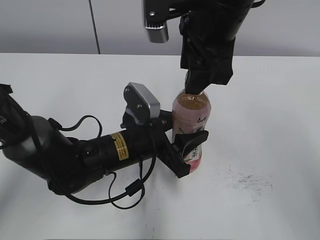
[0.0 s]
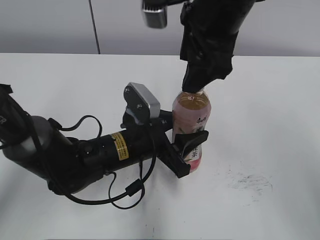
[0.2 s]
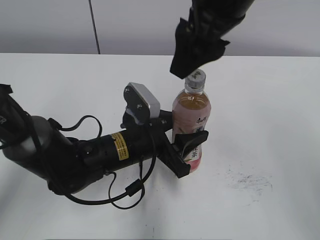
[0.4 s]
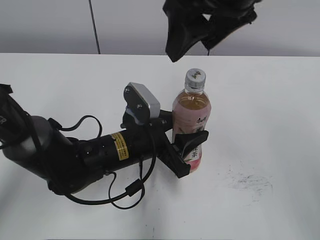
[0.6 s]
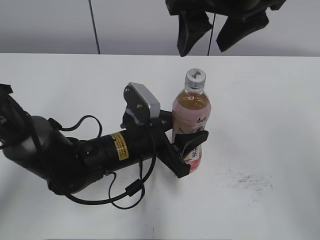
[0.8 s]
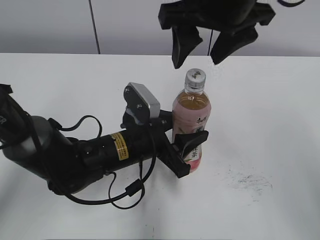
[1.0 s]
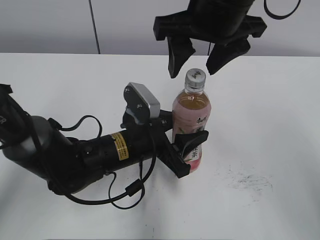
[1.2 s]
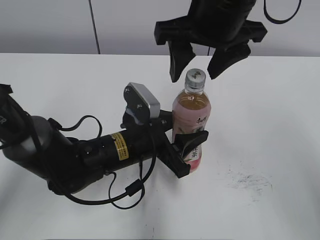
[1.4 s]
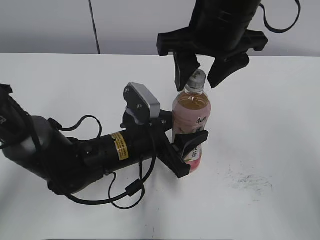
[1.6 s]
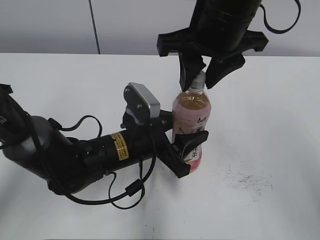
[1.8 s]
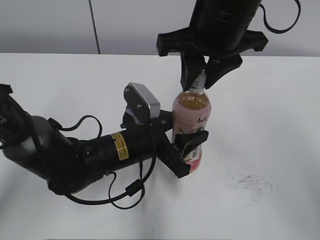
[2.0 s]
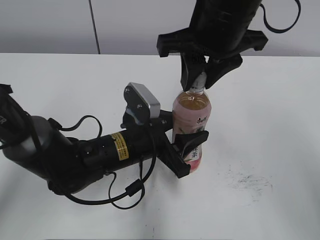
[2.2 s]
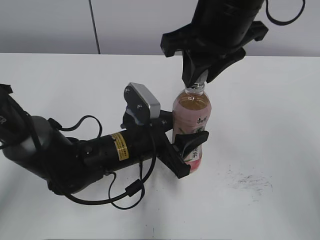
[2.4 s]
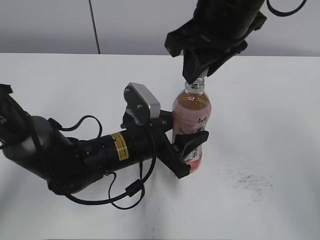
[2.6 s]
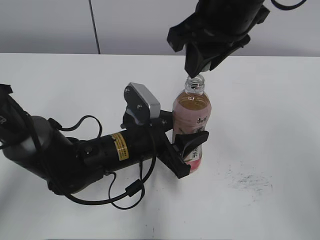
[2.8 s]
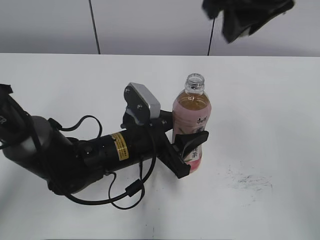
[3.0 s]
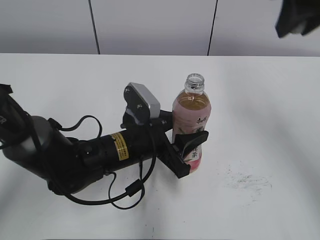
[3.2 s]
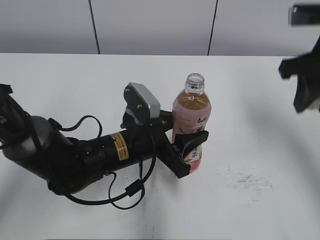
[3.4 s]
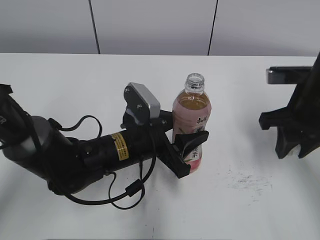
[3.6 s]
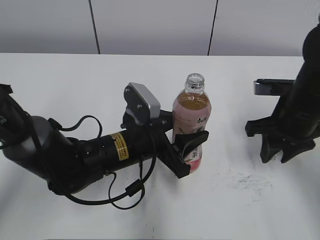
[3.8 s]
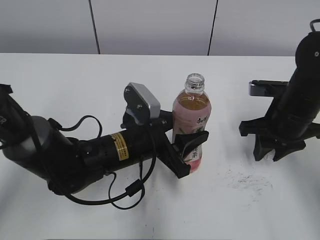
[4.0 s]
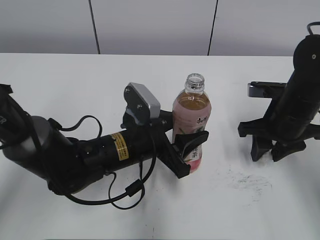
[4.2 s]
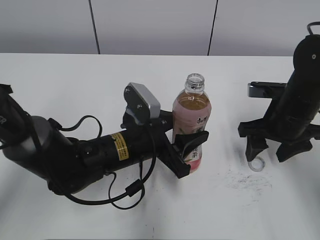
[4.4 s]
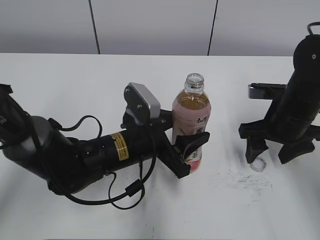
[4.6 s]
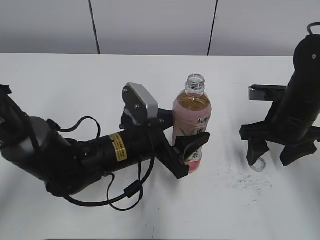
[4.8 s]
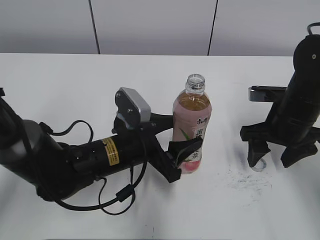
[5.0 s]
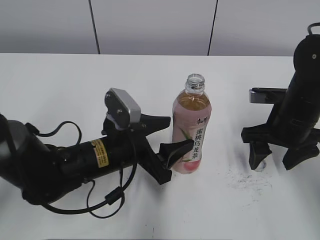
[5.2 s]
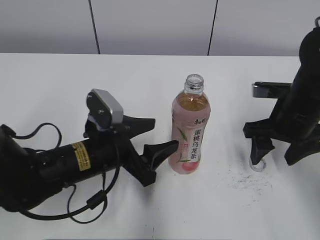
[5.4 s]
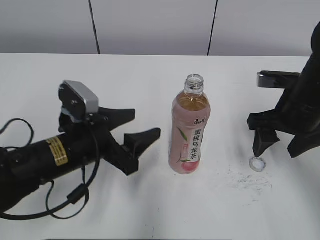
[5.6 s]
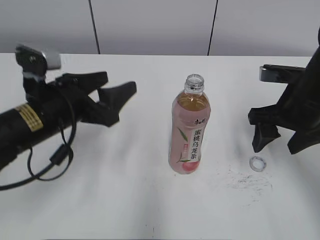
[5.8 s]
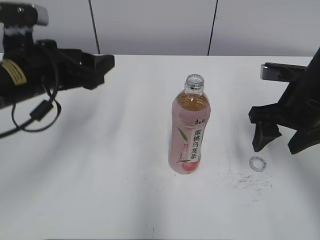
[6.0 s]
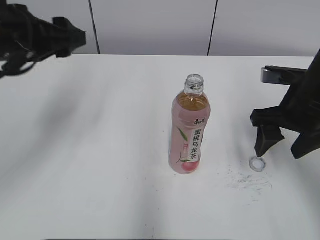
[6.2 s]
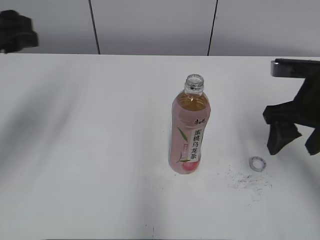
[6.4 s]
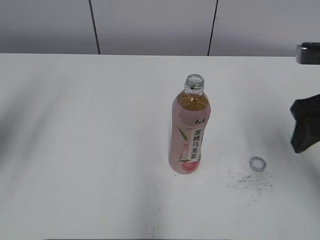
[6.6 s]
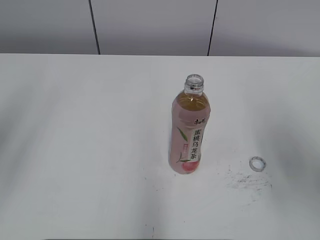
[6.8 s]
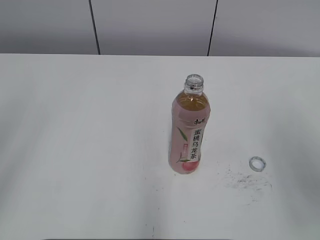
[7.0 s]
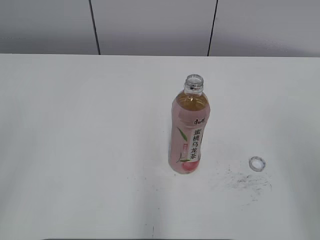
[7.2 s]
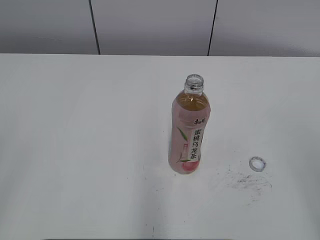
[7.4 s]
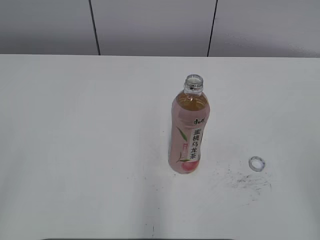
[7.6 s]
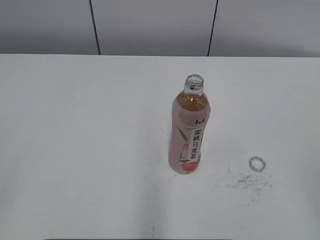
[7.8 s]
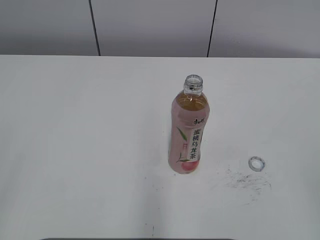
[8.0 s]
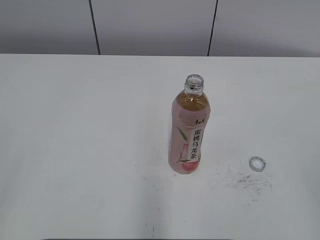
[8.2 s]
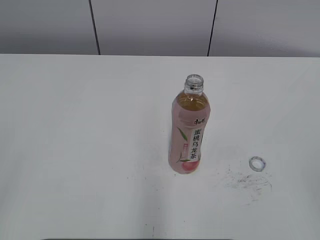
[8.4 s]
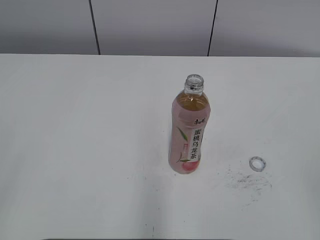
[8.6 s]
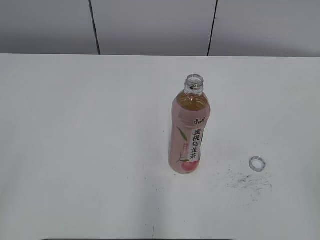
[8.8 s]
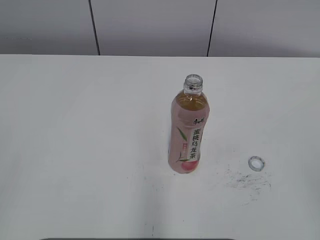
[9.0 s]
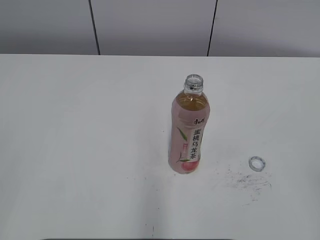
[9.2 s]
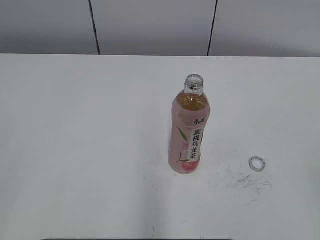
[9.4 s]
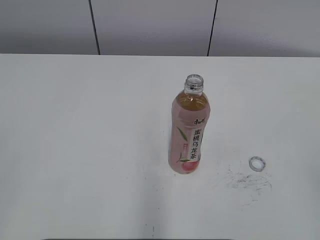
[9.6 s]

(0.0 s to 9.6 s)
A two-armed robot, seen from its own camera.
Step, 2.6 s - 4.2 s: Place the bottle cap on the right.
Step, 4.4 s - 5.2 s: Place the Peach Oolong Tea with the left hand.
1.6 s - 3.2 s: The right gripper goes about 15 cm to the right and upward, and closes its fingers.
3.2 s - 4.8 s: The right gripper is displaced downward by approximately 20 cm, and opens up.
4.8 s - 6.4 s: The left gripper is displaced to the left and upward by approximately 30 cm. Meanwhile the right gripper goes roughly 10 cm upward.
6.4 s - 8.0 s: Both grippers travel together backward, about 30 cm.
8.0 s - 9.6 s: The grippers stay close to where they were, moving slightly.

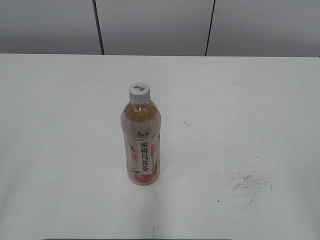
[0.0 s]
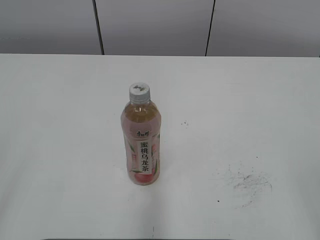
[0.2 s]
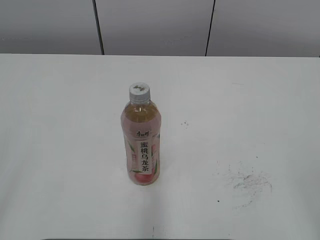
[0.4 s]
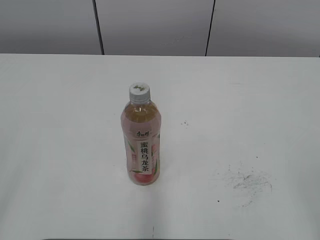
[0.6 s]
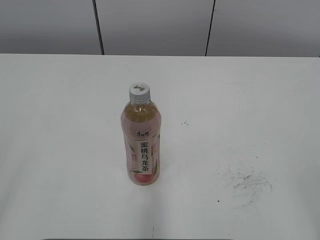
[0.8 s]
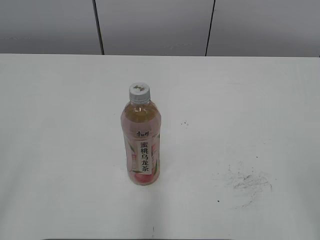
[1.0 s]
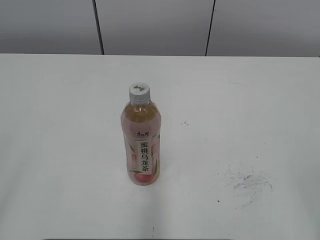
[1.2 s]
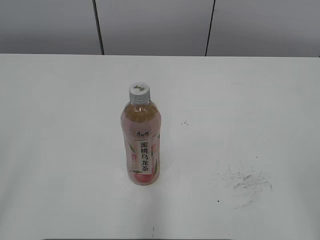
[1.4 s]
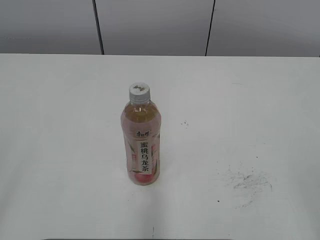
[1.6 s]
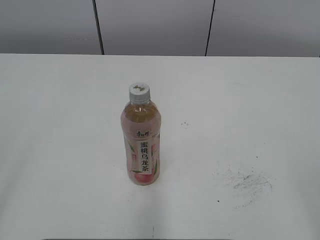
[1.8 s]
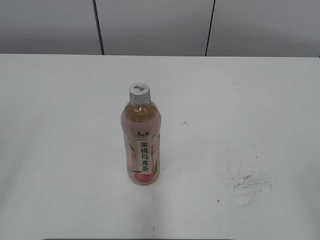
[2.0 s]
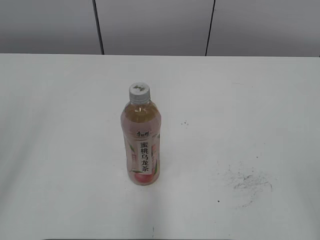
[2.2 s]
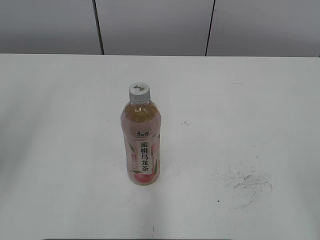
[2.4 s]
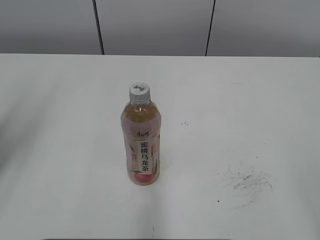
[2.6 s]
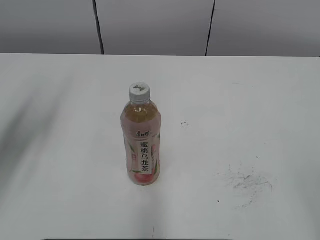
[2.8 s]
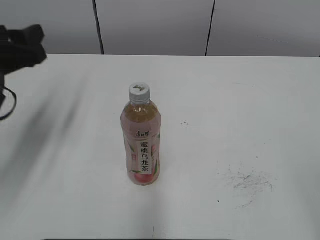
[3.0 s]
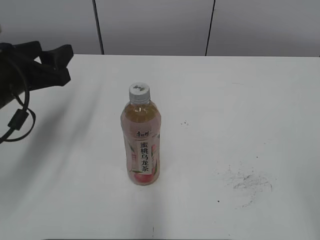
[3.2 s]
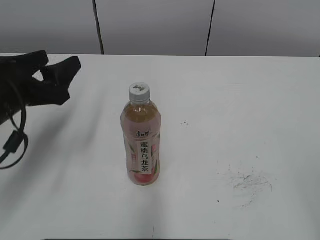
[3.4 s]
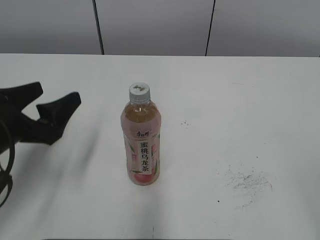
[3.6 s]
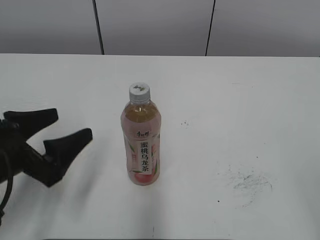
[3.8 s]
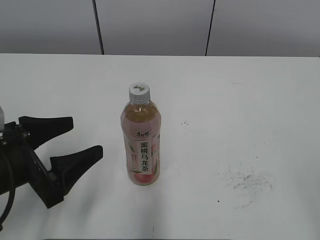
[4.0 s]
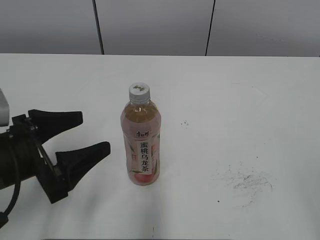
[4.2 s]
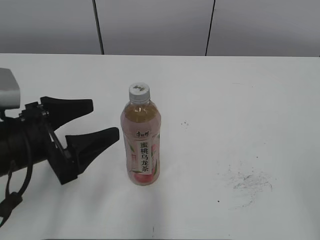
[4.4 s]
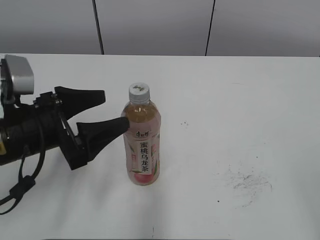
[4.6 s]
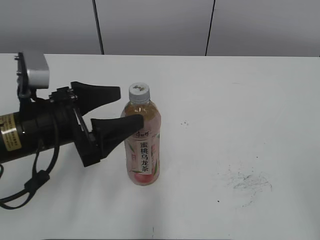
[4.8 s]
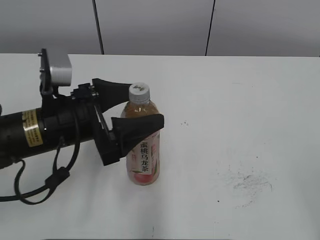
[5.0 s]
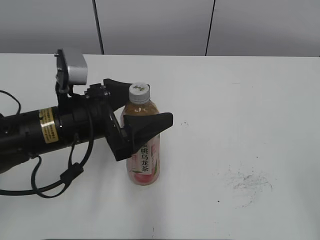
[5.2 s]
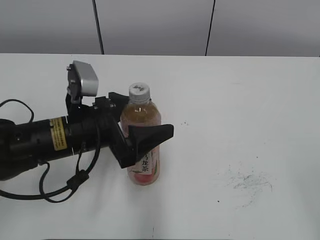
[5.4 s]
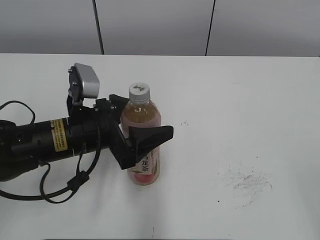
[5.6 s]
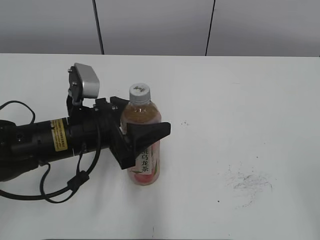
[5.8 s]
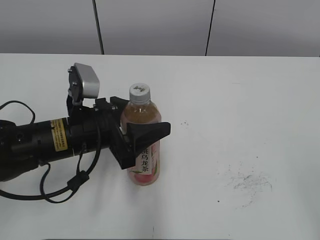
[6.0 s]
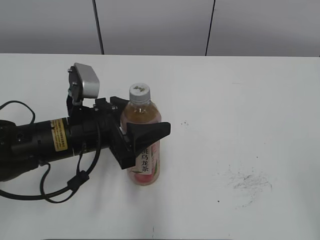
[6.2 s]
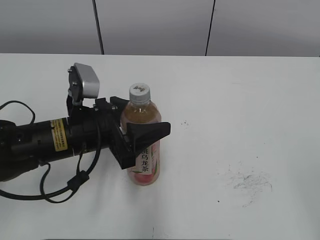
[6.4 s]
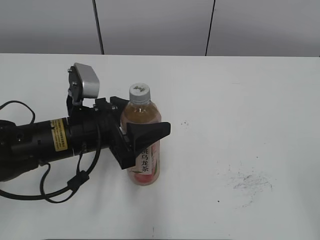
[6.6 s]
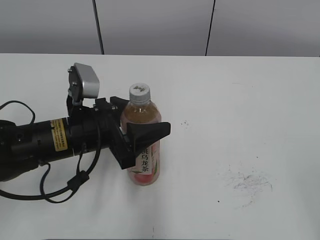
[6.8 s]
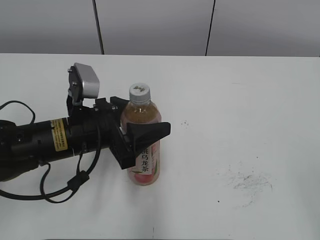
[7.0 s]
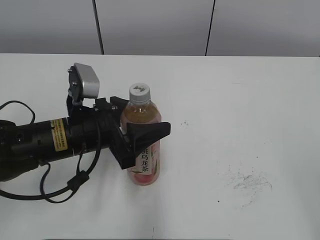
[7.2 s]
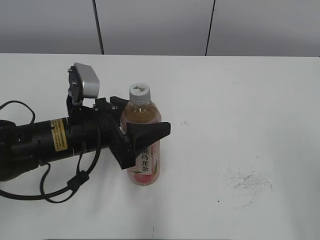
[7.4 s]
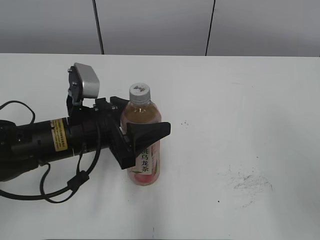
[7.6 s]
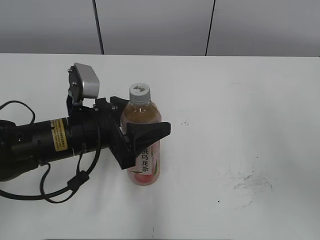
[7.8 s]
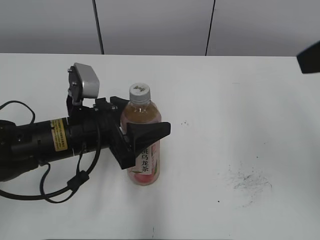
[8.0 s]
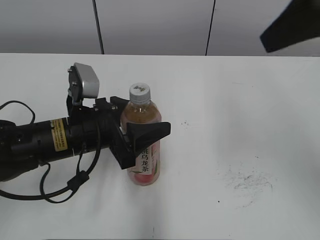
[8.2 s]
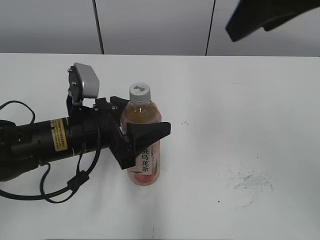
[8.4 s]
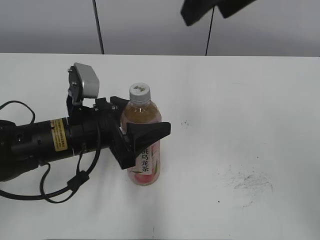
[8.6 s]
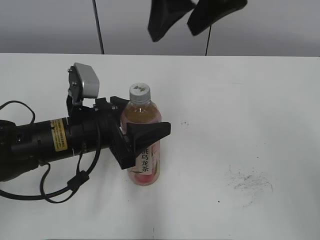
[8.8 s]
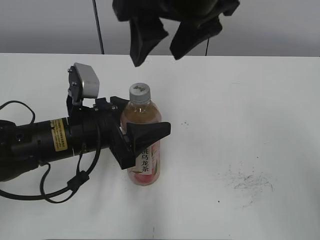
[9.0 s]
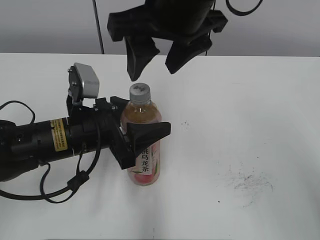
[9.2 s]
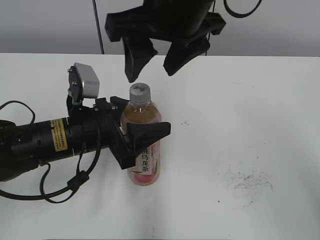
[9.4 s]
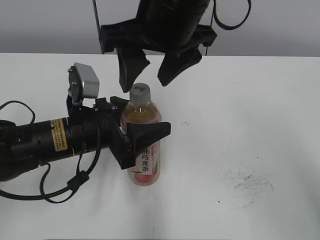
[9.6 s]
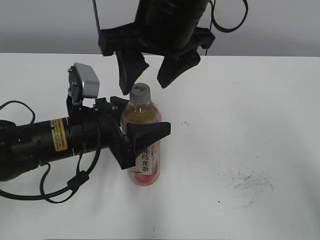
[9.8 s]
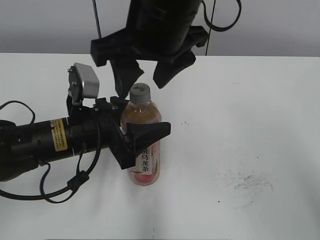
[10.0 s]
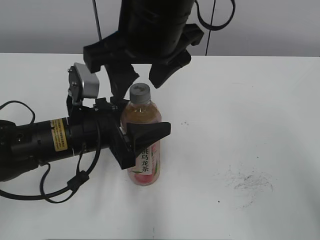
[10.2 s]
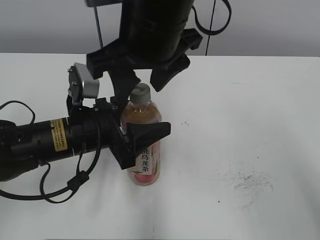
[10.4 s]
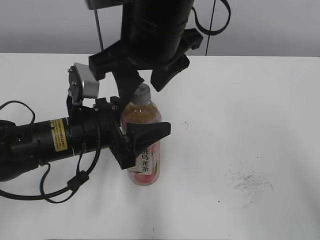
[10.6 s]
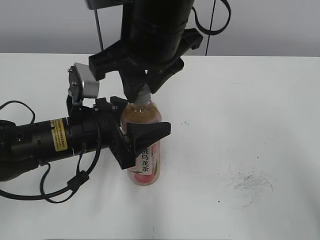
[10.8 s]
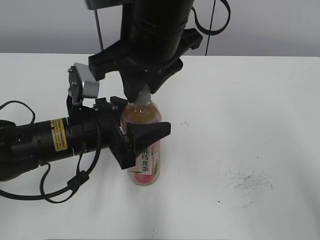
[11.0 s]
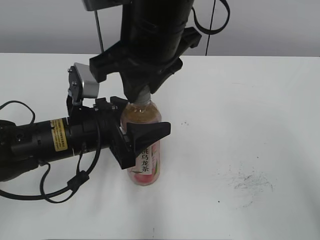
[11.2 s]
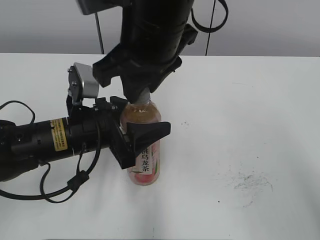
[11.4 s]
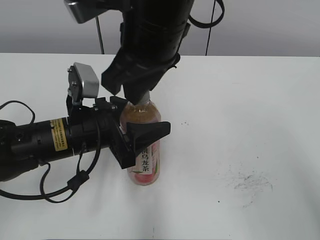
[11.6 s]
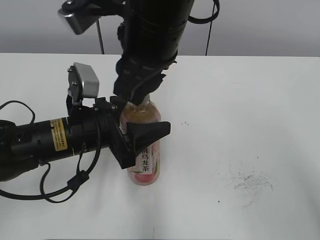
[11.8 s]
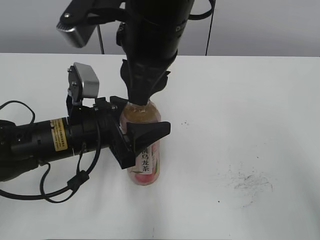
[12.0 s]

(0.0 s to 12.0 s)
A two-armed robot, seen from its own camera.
Step, 0.0 s - 10.4 s: Grab the Peach Oolong Tea with the left hand.
1.6 s - 3.0 s: The left gripper is displaced forward by approximately 25 cm, and closes its fingers.
3.0 s - 4.4 s: The left gripper travels downward, backward and to the right by roughly 10 cm, and opens its fingers.
4.4 s - 6.0 s: The left gripper heads to the right and forward, covering roughly 10 cm, and closes up.
7.6 s - 9.0 s: The right gripper is displaced to the left and forward by some 30 cm.
9.0 s - 10.4 s: The right gripper shifts by some 5 cm.
10.4 s - 12.0 s: The right gripper closes.

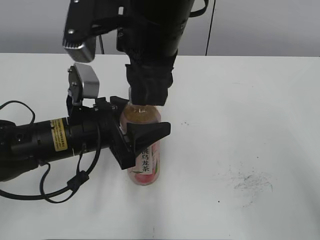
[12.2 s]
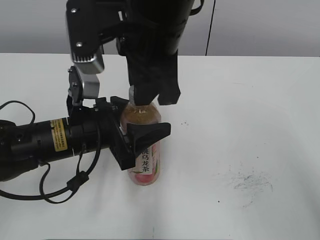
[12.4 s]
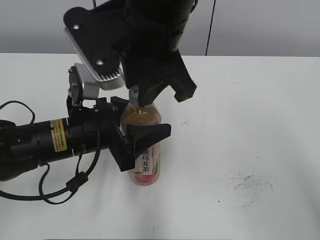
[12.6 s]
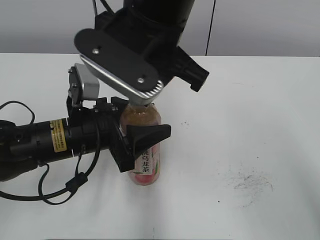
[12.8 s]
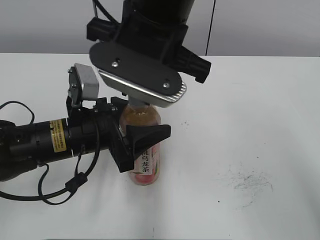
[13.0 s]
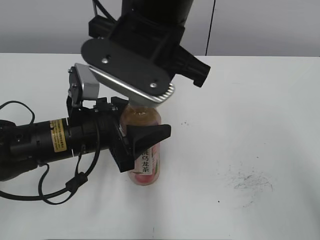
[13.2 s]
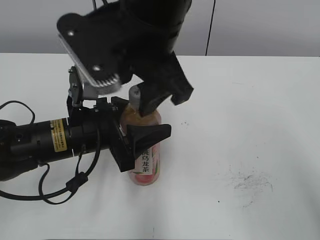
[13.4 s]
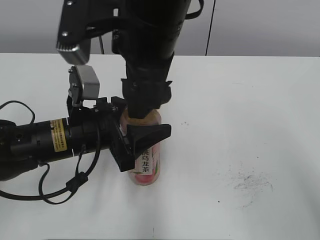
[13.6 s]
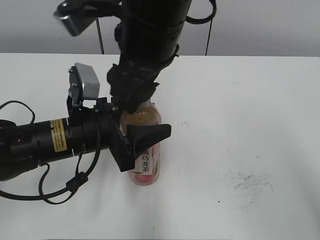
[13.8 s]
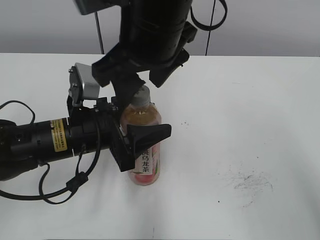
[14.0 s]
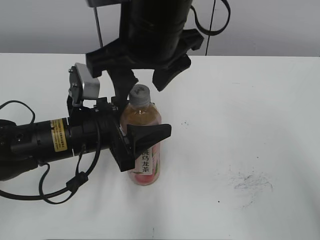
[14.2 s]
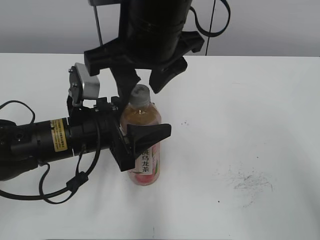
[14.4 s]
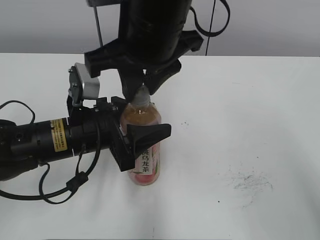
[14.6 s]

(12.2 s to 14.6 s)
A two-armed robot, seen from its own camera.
12.2 s - 13.4 s: The right gripper opens.
13.4 s - 14.6 s: The right gripper closes up.
